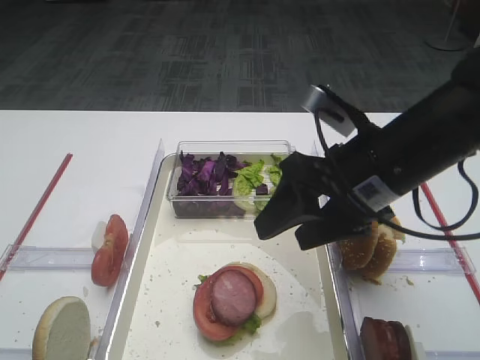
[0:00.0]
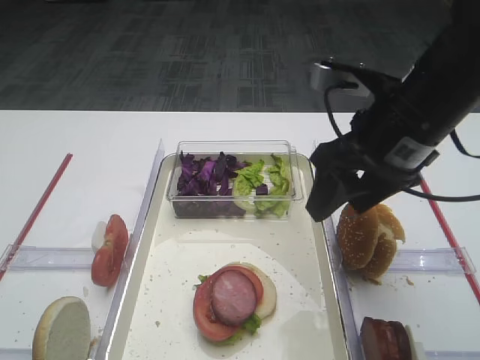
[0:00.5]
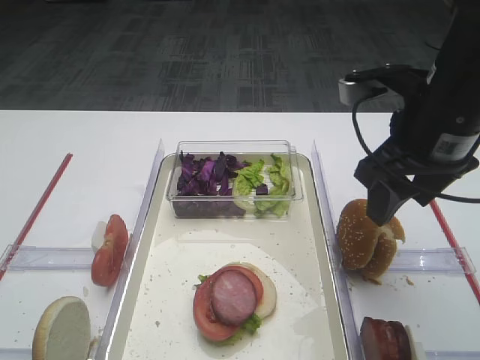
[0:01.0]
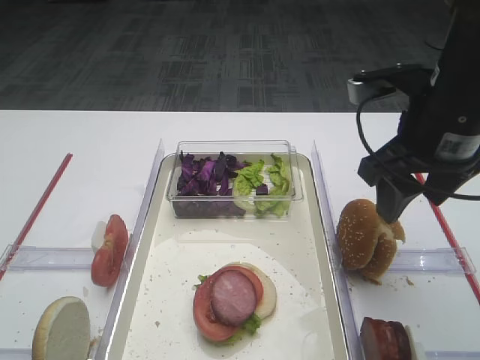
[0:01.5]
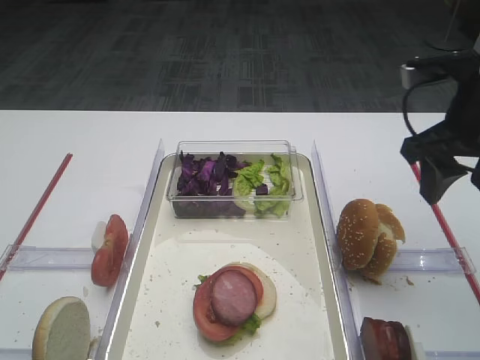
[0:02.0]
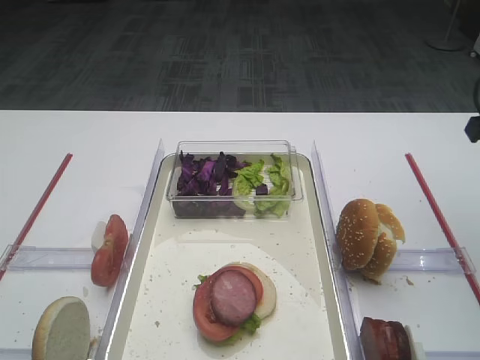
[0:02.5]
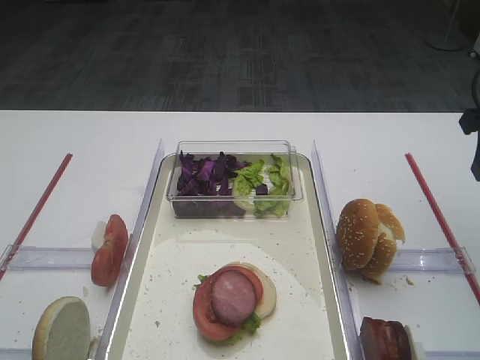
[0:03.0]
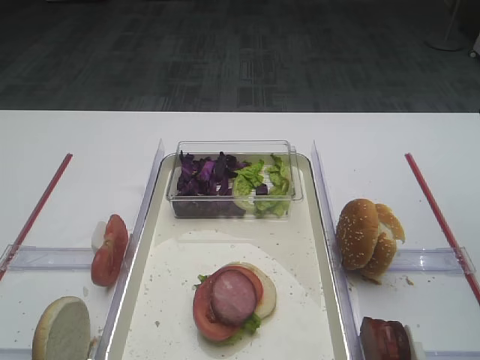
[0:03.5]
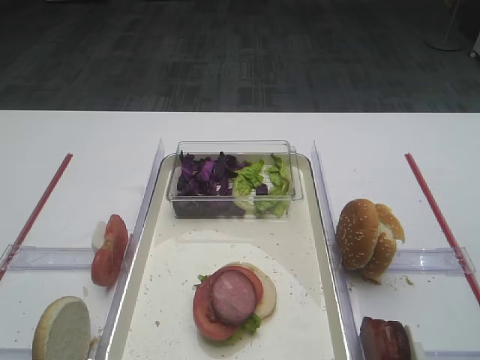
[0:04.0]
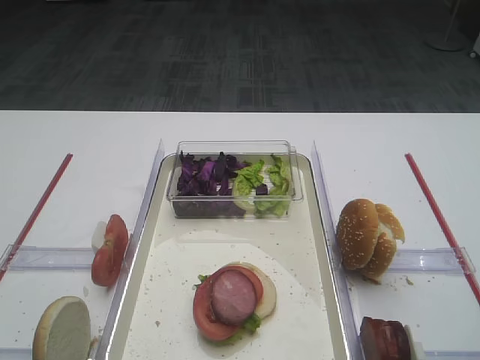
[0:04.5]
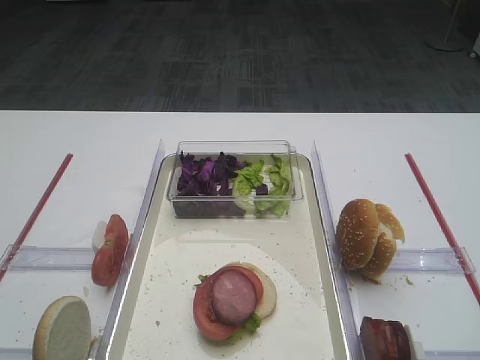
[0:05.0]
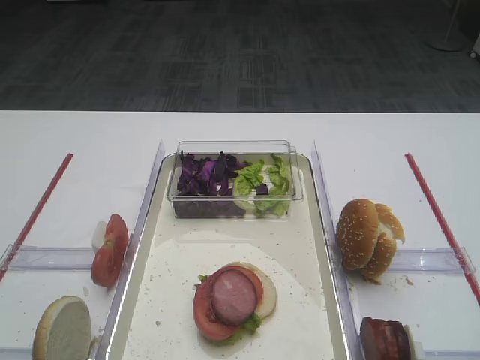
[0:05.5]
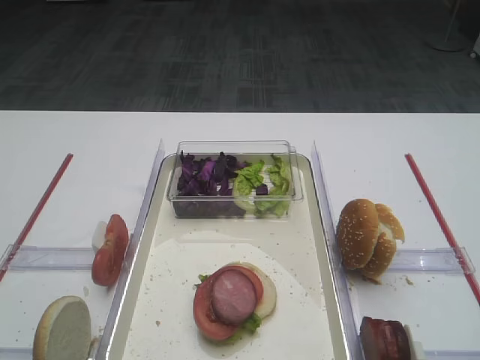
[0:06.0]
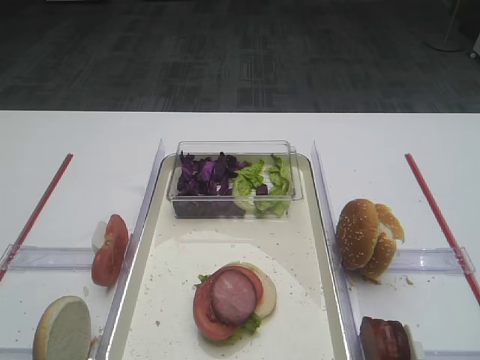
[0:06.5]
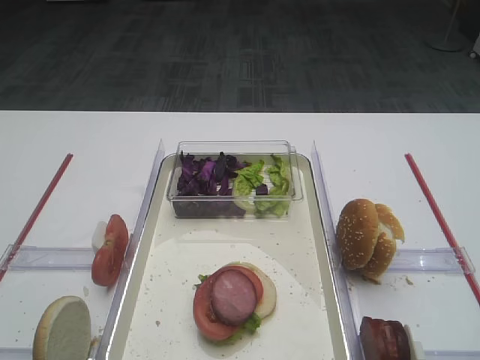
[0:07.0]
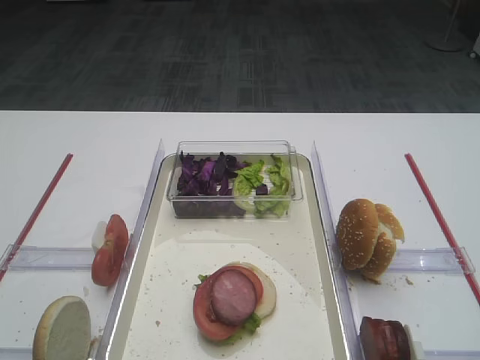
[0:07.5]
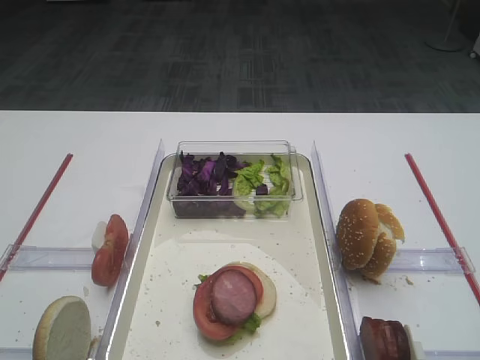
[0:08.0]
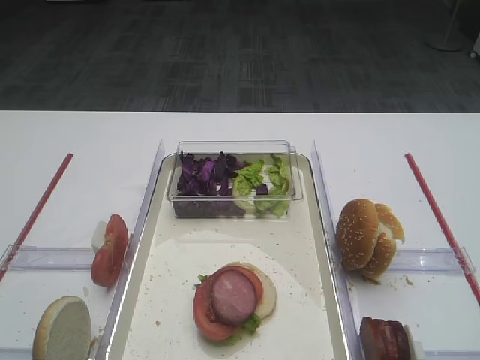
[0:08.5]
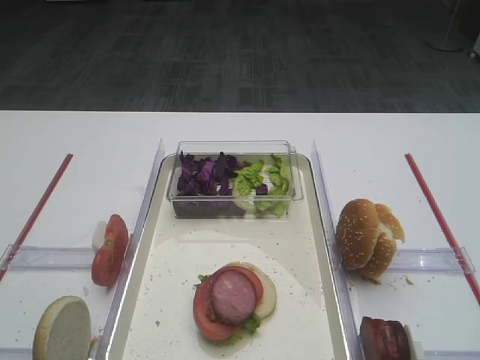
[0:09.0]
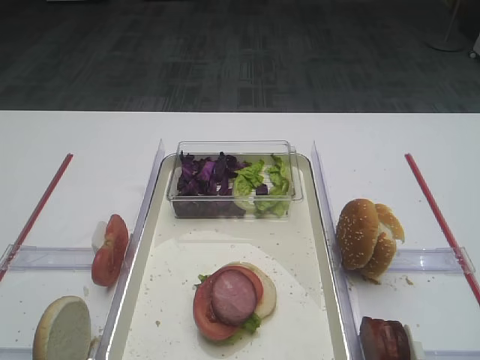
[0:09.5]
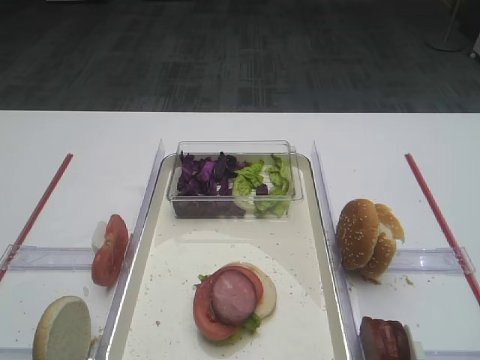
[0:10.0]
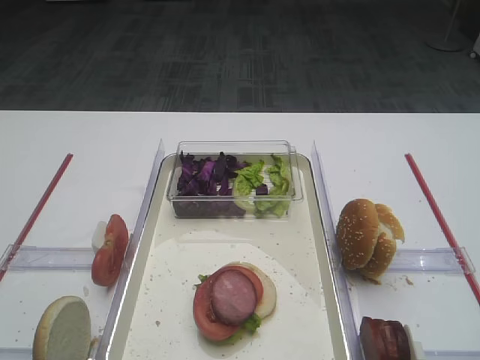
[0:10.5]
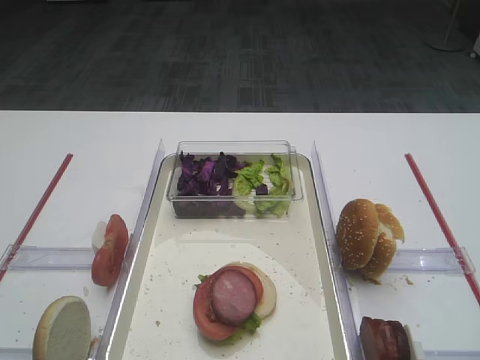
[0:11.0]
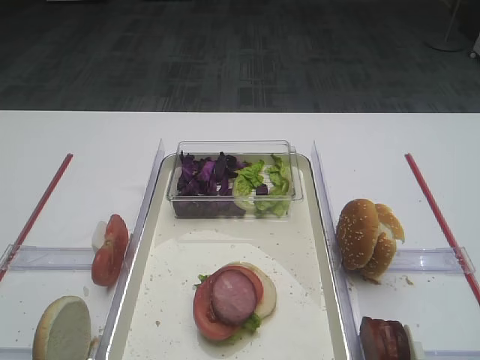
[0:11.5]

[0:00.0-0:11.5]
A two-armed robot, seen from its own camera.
0:00.0 to 0:02.0: The right gripper heads to the right, covering approximately 10 cm.
0:02.0 to 0:04.0: The right gripper moves upward, backward and to the right, some 15 cm.
0:06.0 to 0:11.5: Neither gripper changes place.

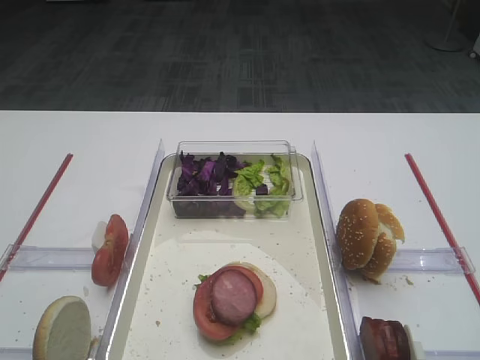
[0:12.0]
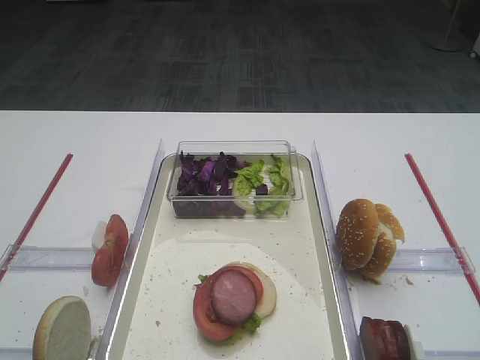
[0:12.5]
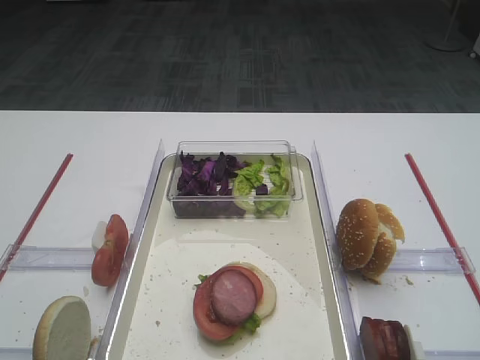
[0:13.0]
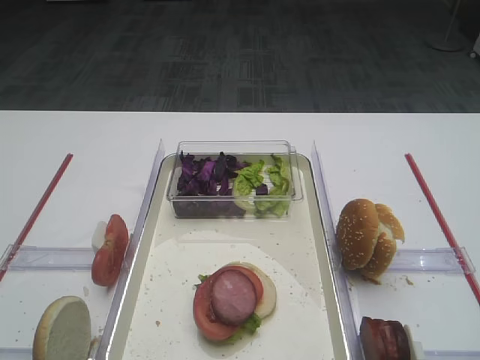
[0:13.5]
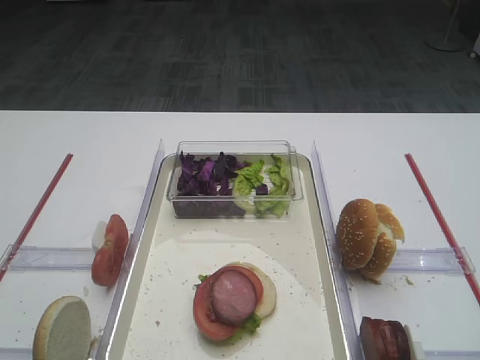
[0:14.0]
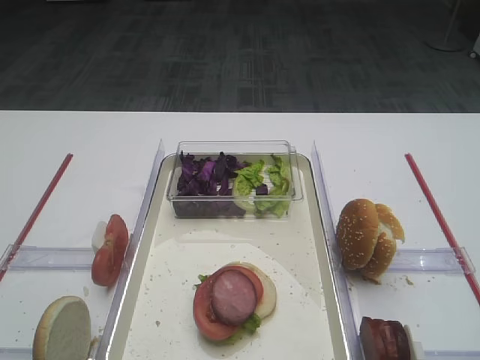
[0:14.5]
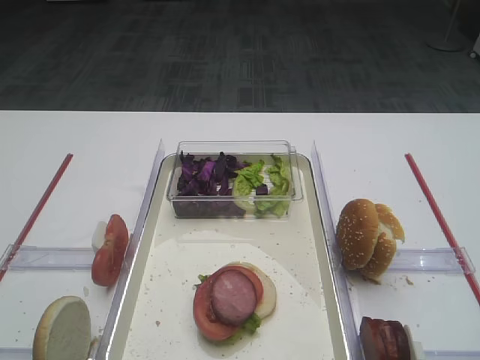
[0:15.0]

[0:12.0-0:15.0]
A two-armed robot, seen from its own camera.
0:12.0 to 0:15.0: Both grippers stay about where they are.
